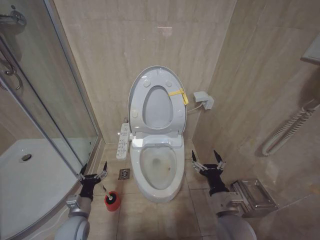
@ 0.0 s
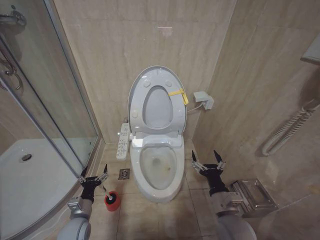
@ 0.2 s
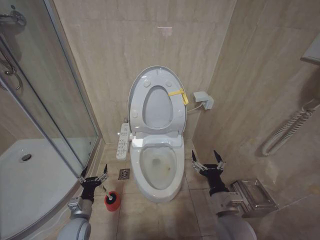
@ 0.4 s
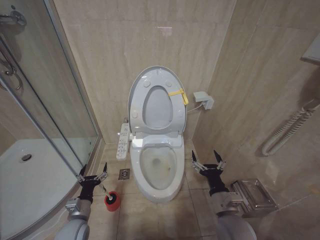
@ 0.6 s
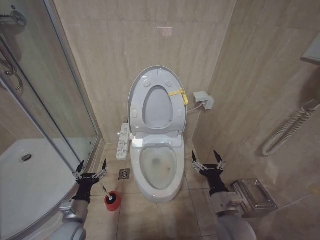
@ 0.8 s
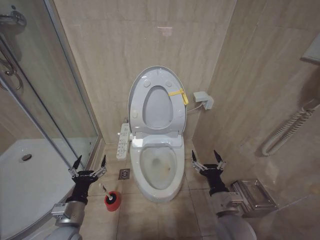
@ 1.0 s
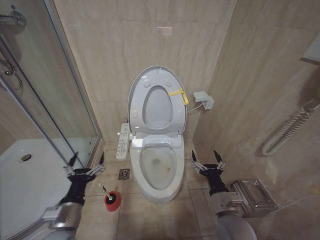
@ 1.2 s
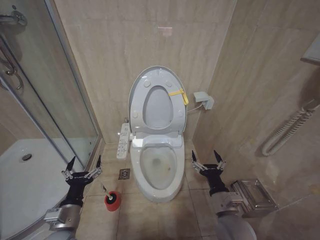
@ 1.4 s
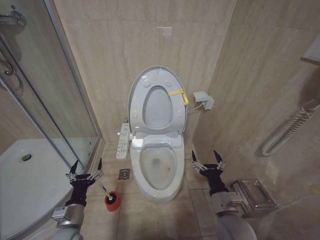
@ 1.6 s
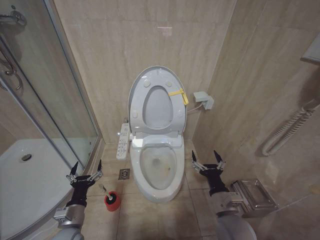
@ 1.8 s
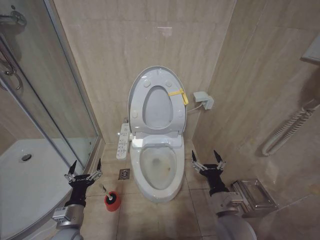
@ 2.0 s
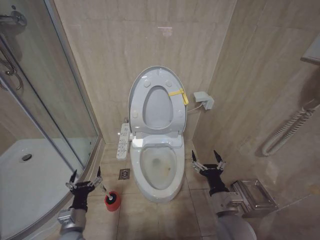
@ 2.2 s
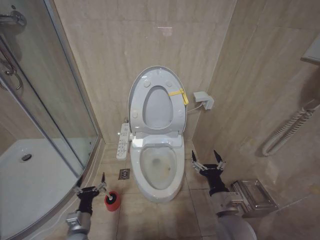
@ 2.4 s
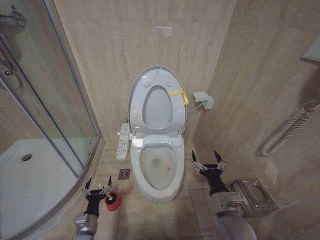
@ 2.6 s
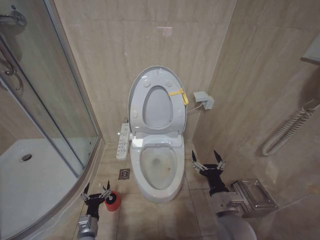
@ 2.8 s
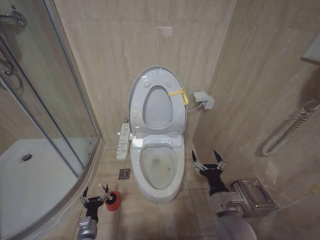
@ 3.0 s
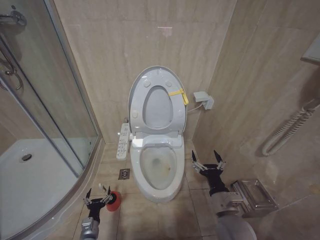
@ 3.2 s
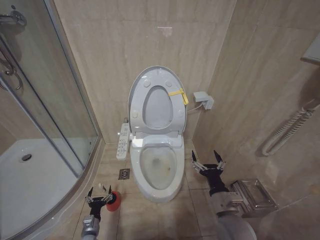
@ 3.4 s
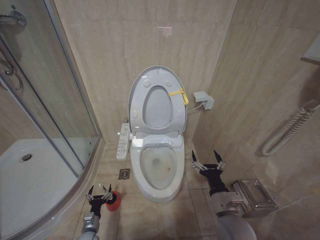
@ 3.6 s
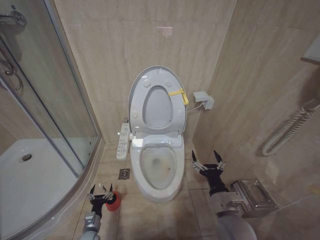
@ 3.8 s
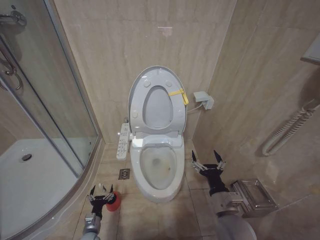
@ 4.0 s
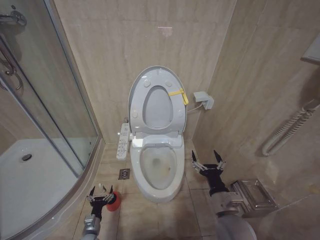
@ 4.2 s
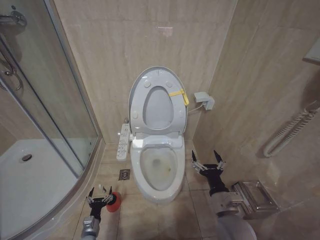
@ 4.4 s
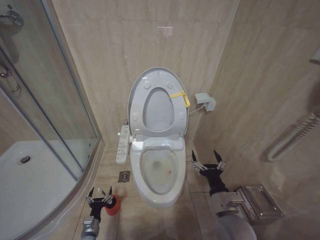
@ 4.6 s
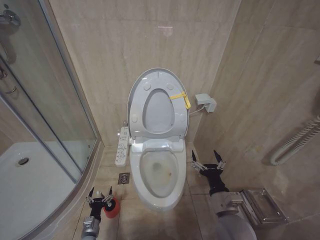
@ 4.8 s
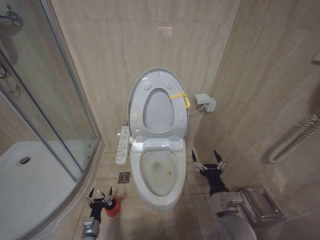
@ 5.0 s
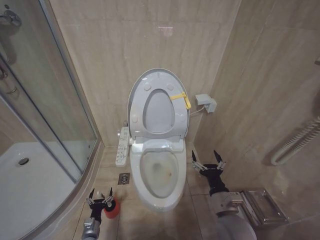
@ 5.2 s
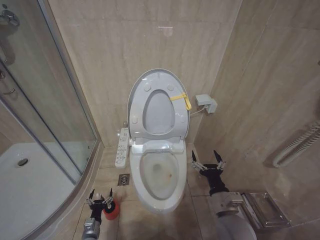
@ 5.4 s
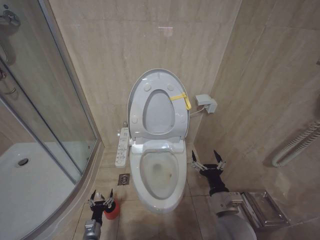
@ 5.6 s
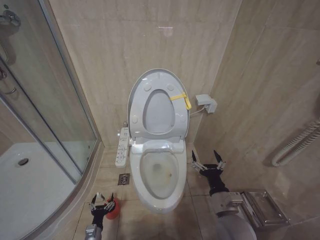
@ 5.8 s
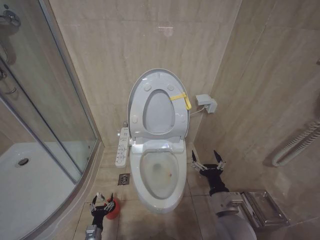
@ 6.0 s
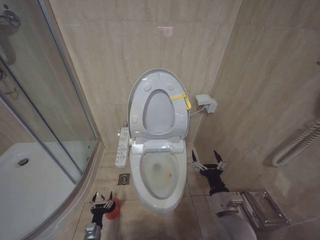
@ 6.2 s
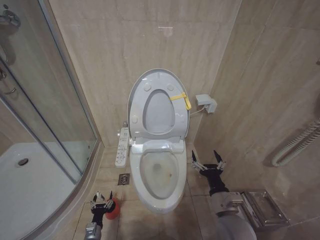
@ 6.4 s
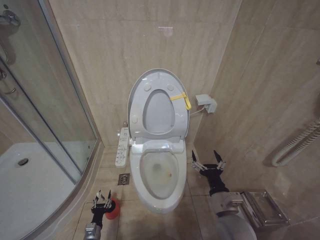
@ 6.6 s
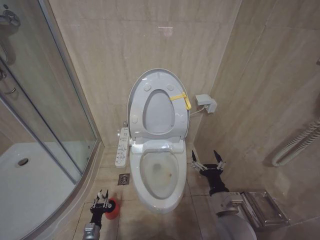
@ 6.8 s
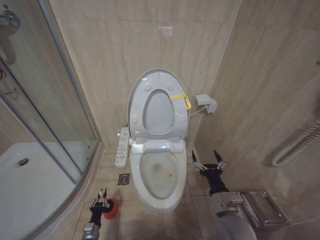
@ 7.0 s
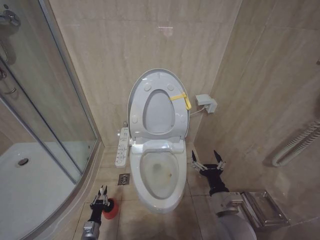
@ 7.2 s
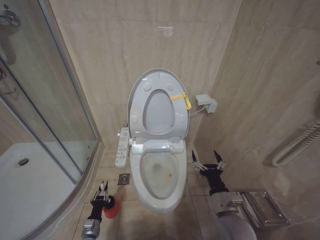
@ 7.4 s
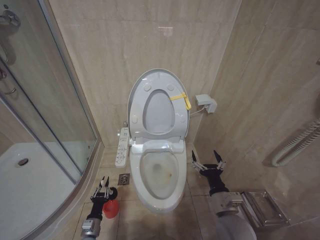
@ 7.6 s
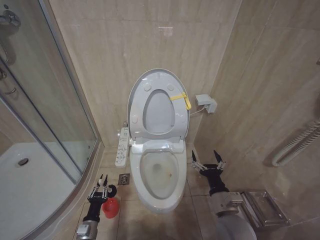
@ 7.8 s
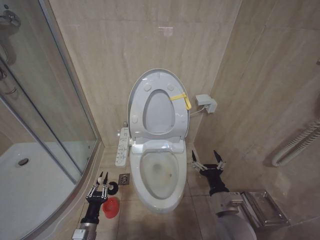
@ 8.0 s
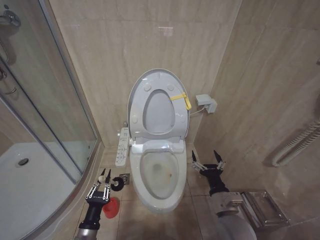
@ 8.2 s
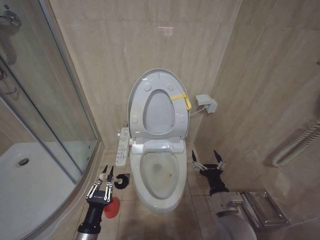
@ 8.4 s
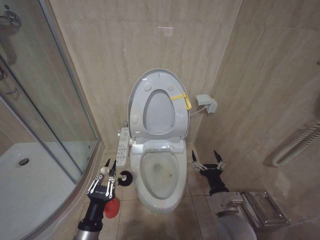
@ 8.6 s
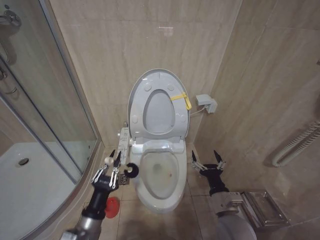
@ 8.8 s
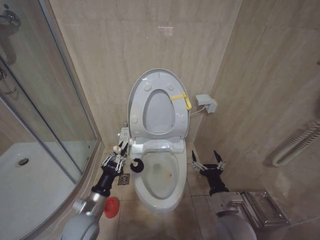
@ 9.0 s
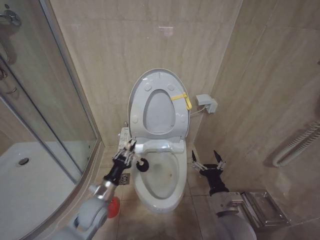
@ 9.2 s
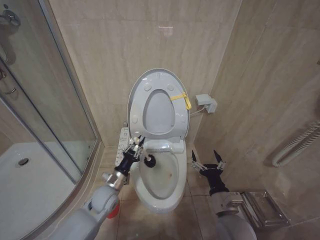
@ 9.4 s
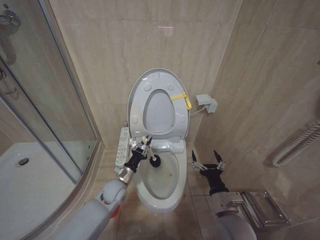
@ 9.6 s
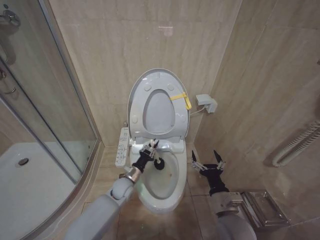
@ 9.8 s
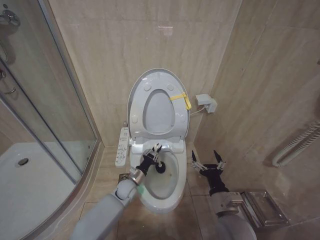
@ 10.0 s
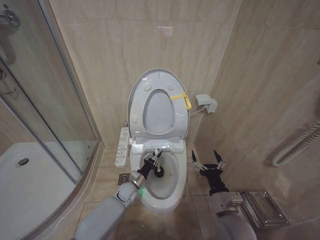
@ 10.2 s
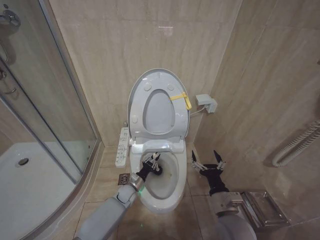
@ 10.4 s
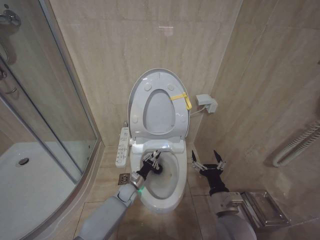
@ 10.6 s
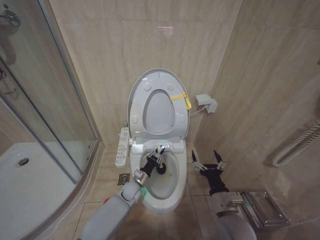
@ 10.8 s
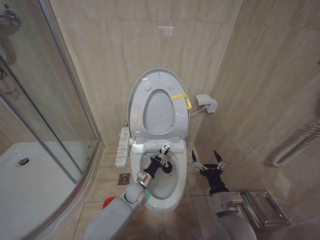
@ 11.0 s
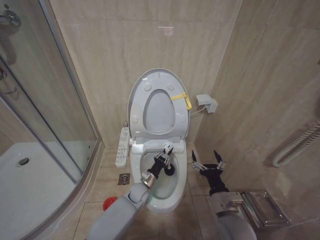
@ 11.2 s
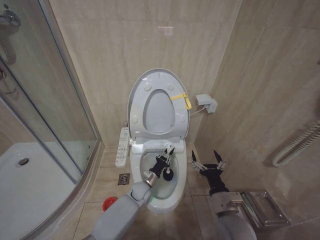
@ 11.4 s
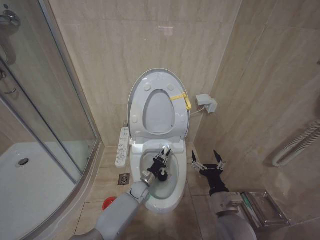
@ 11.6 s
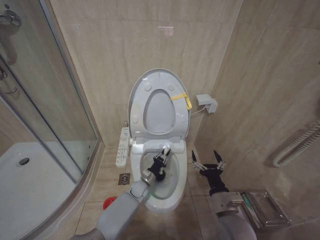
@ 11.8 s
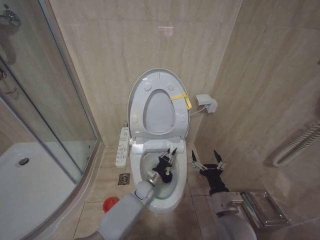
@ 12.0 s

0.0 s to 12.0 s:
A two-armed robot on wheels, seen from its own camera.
Task of the whole recording: Open the toilet lid, clean the toilet bowl with a toilet brush, close the toilet lid, and flush.
0.0 to 1.6 s: The left gripper travels upward and back again, some 10 cm each way.
1.6 to 3.0 s: The left gripper heads downward, covering some 20 cm.
3.0 to 4.4 s: The left gripper moves downward, some 5 cm.
4.4 to 6.0 s: The grippers move only a little.
6.0 to 7.6 s: The left gripper goes about 5 cm upward, and closes its fingers.
7.6 to 9.0 s: The left gripper moves upward, about 25 cm.
9.0 to 10.4 s: The left gripper shifts about 30 cm forward and downward.
10.4 to 12.0 s: The left gripper heads to the right, covering approximately 10 cm.

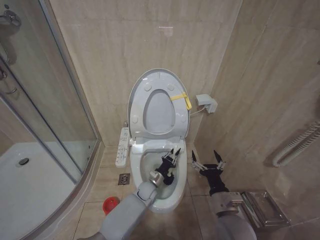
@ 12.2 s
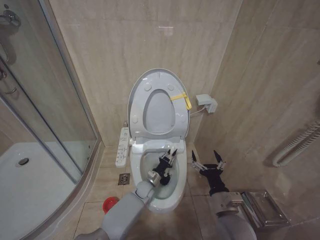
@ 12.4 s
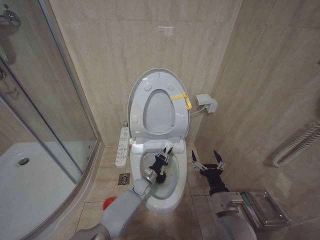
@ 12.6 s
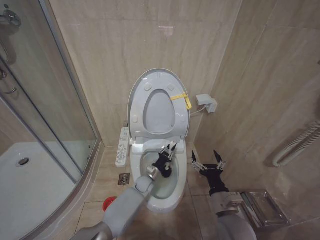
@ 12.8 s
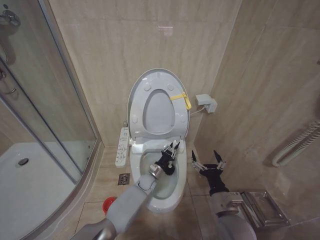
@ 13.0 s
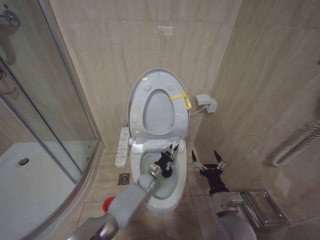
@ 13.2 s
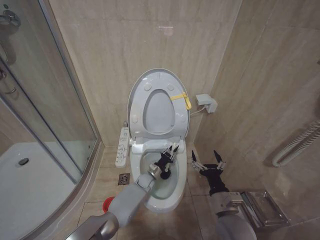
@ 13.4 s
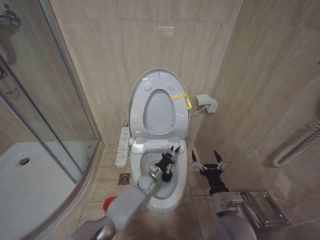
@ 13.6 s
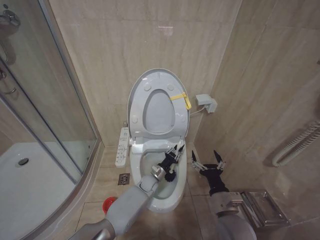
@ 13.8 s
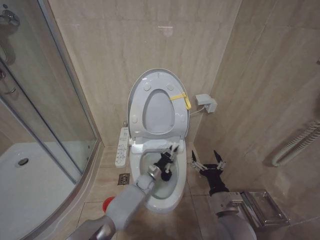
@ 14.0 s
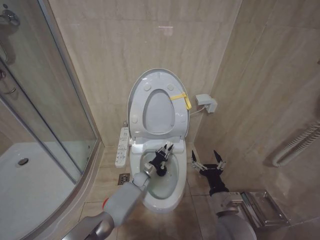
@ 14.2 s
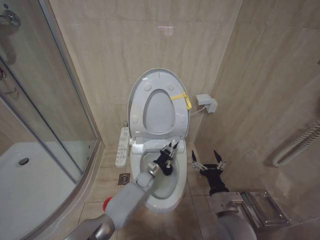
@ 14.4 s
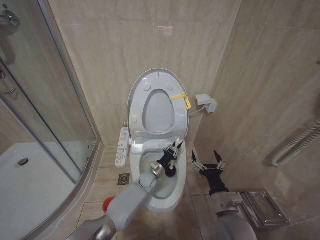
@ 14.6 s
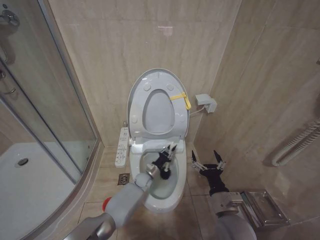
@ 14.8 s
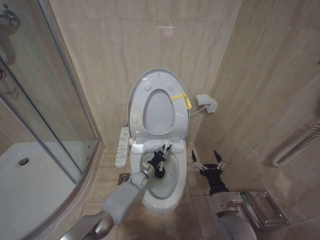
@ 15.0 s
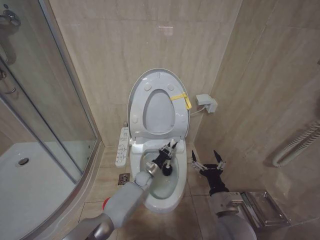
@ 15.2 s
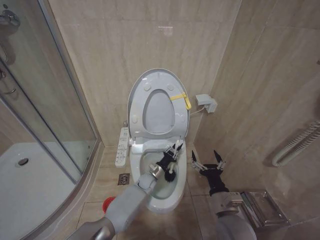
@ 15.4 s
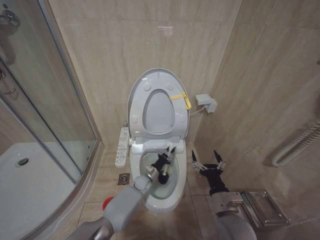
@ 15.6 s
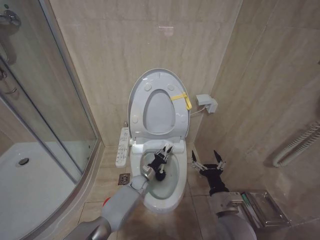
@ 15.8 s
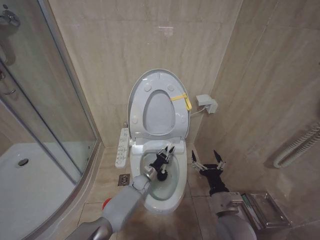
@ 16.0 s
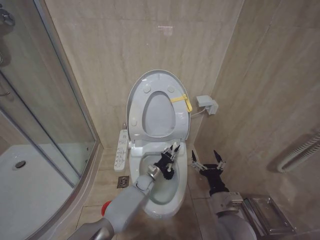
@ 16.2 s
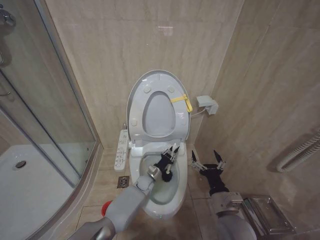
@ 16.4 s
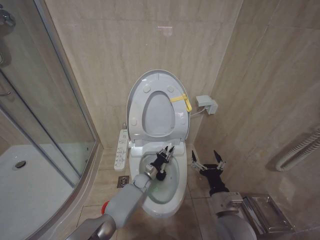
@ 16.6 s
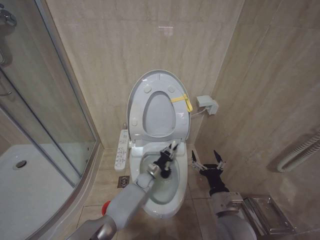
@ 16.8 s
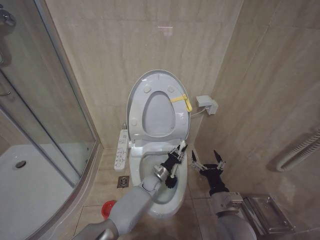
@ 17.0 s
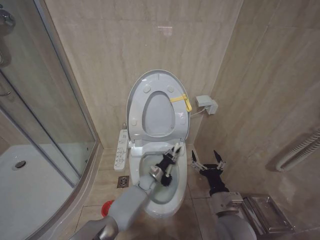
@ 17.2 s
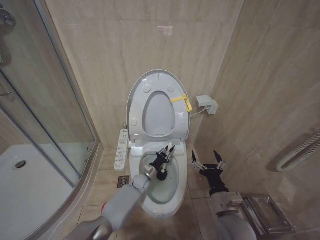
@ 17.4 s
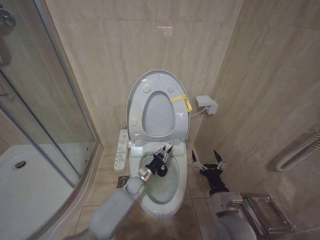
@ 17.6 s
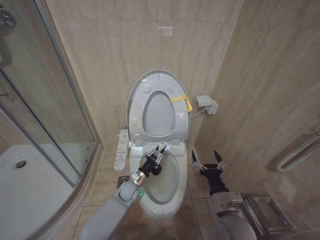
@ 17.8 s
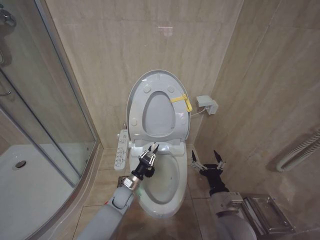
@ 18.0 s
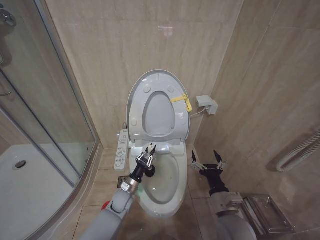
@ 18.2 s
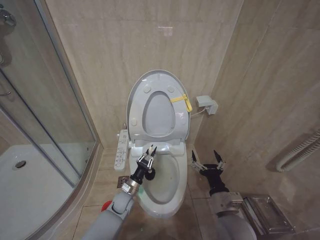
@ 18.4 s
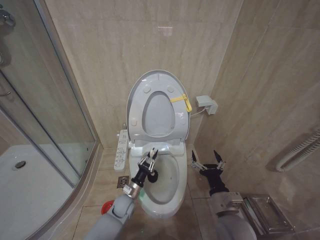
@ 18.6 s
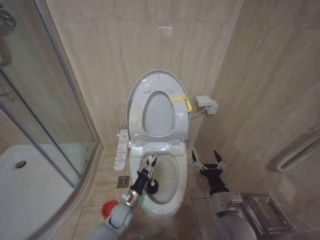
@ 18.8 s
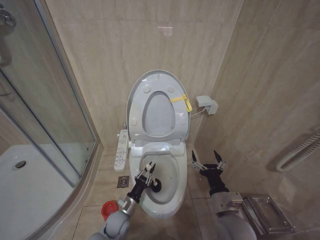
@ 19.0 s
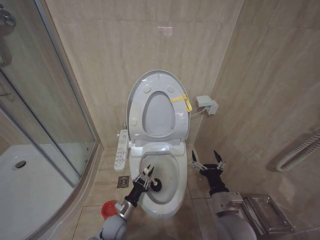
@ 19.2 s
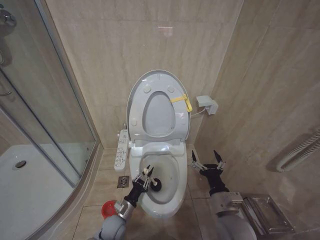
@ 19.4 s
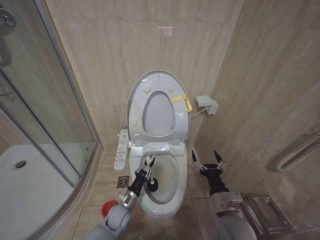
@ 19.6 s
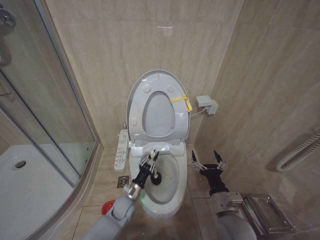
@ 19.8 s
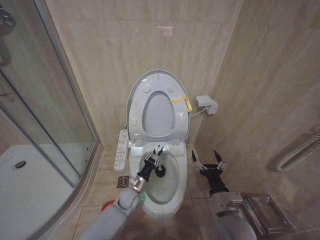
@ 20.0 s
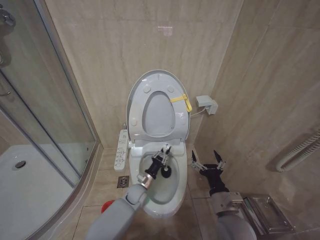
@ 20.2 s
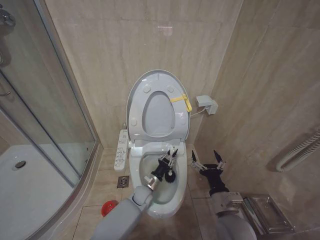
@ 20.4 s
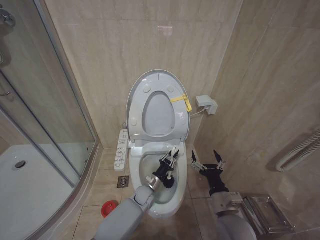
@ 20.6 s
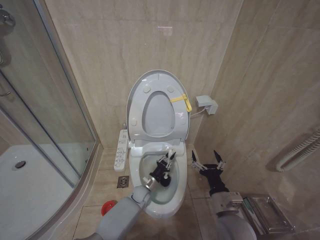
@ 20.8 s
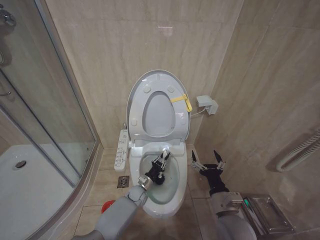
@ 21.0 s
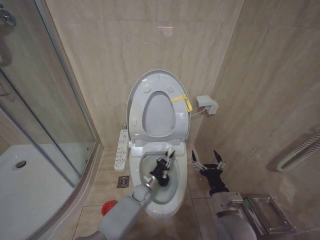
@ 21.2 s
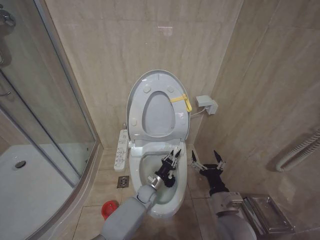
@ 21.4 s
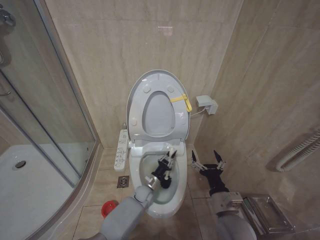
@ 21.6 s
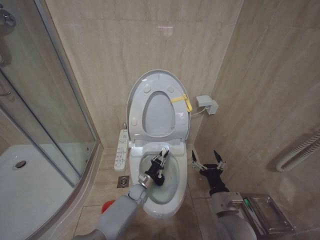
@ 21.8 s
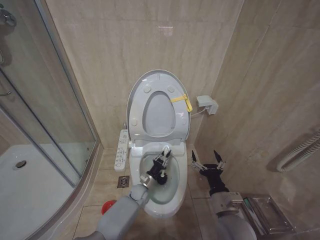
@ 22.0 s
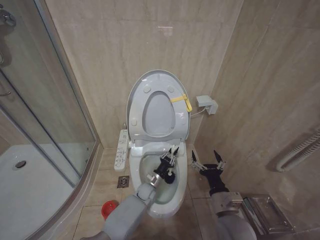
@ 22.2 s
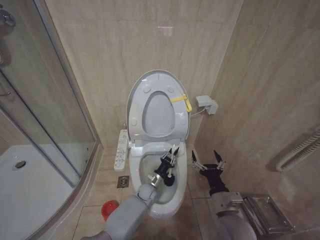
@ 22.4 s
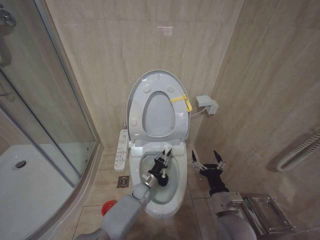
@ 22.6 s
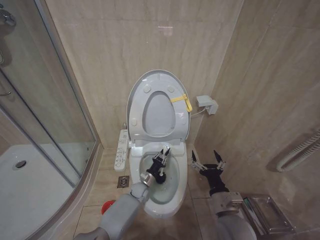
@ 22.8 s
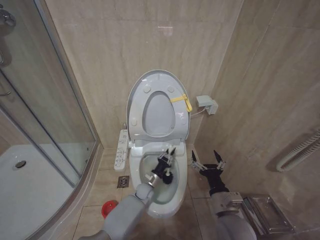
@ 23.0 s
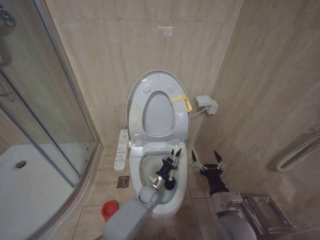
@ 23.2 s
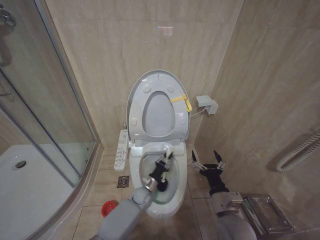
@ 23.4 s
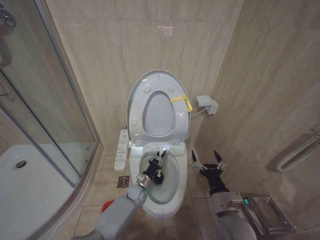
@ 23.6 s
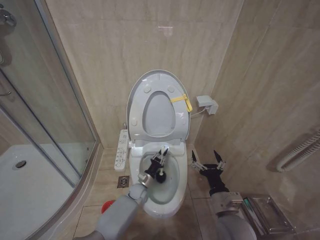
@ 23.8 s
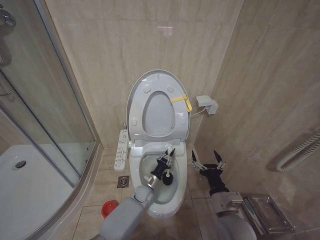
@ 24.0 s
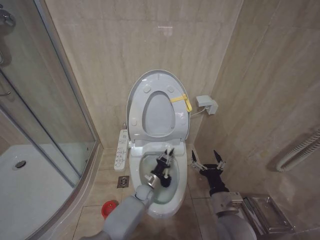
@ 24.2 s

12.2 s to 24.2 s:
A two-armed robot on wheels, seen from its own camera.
Task of the whole recording: Open the toilet lid, clean the toilet bowl with a toilet brush, close the toilet lid, and flush.
13.8 to 15.2 s: The left gripper moves approximately 5 cm.
15.2 to 16.6 s: There are only small adjustments of the grippers.
16.6 to 18.2 s: The left gripper heads backward and to the left, covering roughly 15 cm.
19.8 to 21.2 s: The left gripper moves forward and to the right, some 10 cm.
22.6 to 24.2 s: The grippers move only a little.
